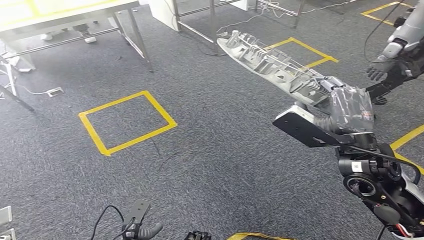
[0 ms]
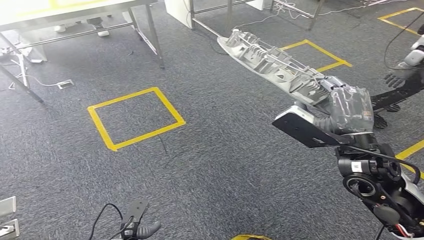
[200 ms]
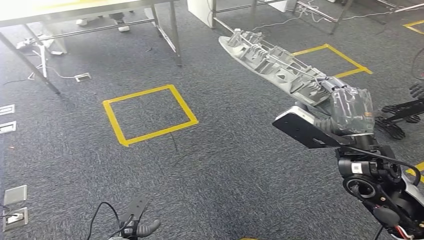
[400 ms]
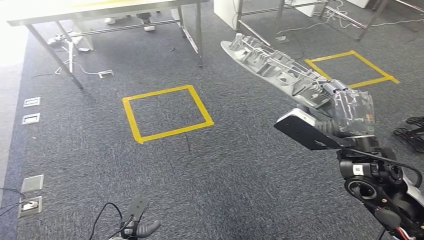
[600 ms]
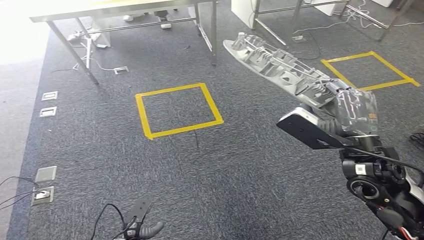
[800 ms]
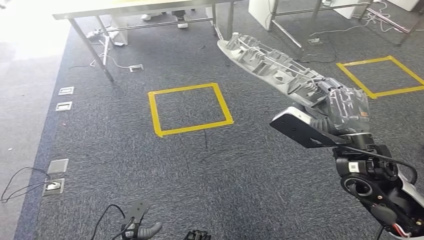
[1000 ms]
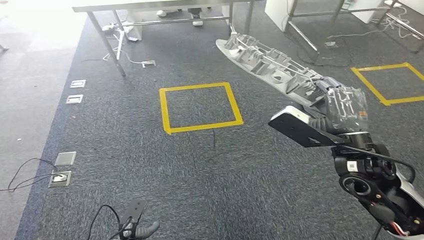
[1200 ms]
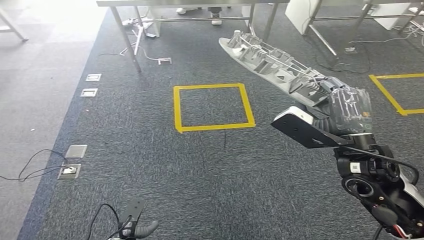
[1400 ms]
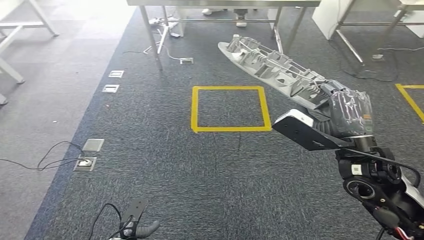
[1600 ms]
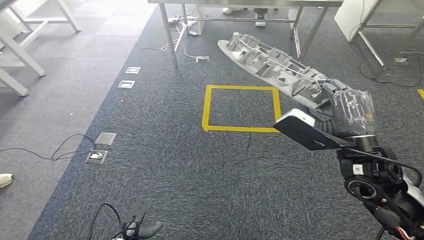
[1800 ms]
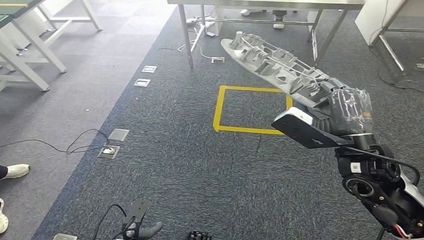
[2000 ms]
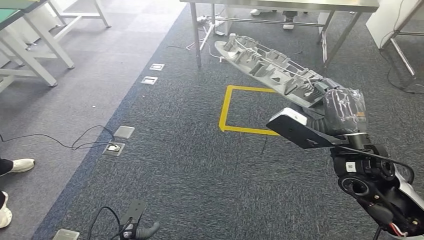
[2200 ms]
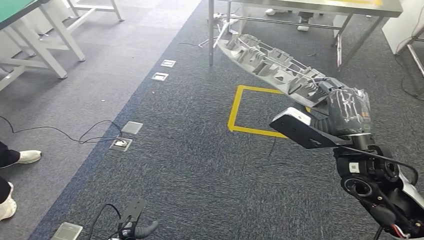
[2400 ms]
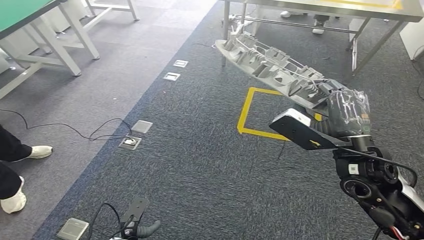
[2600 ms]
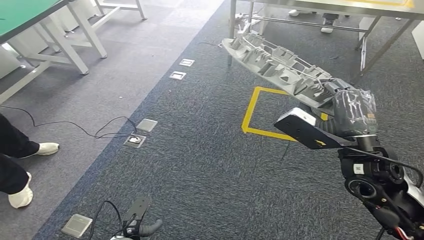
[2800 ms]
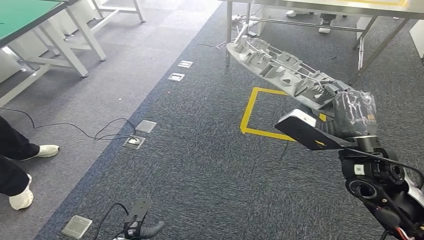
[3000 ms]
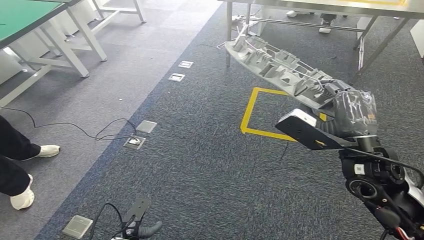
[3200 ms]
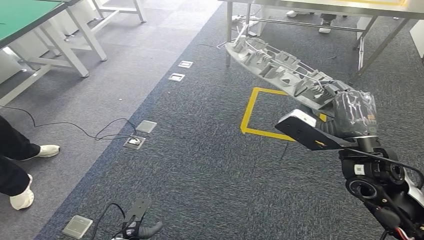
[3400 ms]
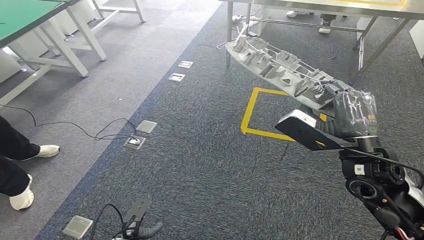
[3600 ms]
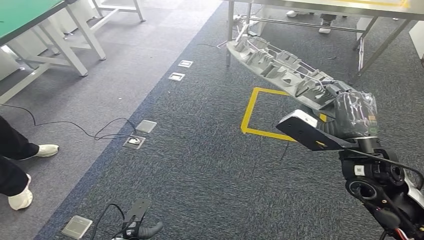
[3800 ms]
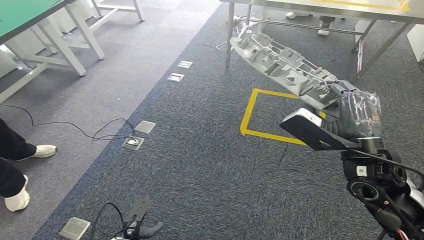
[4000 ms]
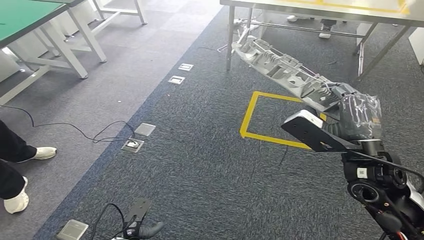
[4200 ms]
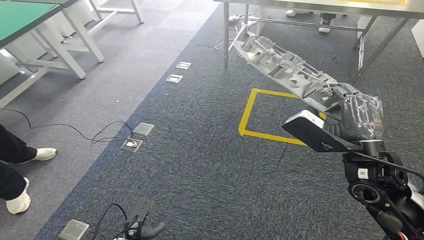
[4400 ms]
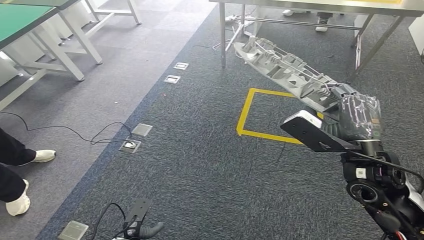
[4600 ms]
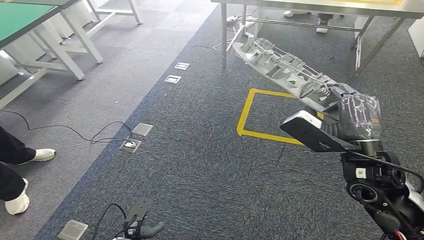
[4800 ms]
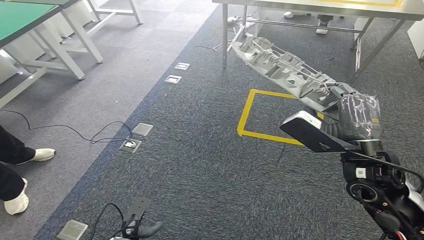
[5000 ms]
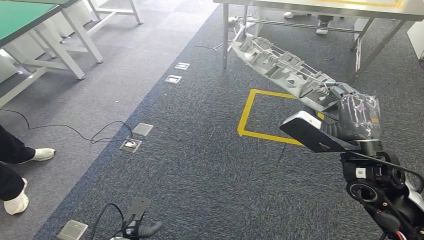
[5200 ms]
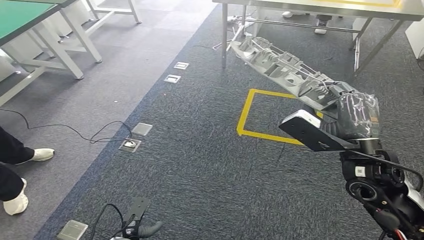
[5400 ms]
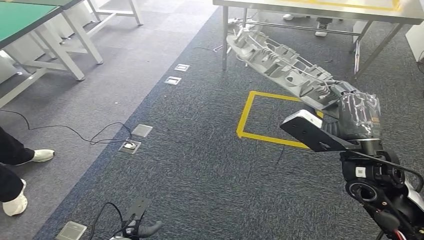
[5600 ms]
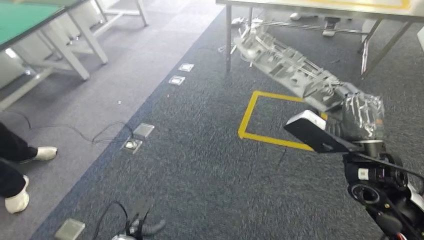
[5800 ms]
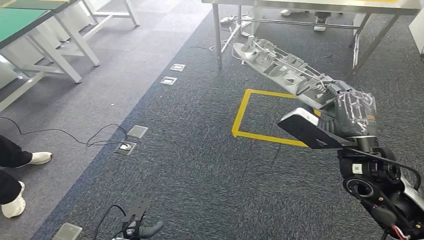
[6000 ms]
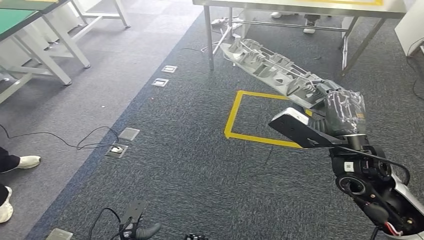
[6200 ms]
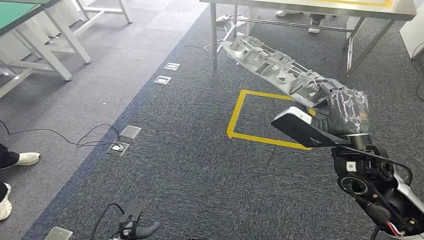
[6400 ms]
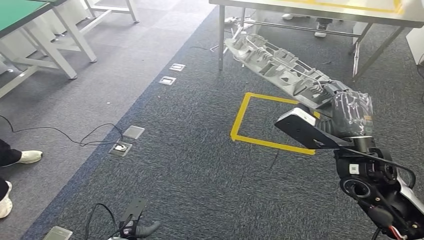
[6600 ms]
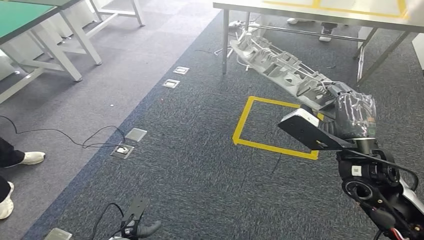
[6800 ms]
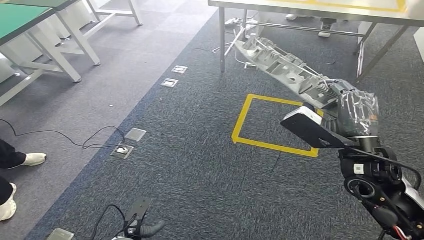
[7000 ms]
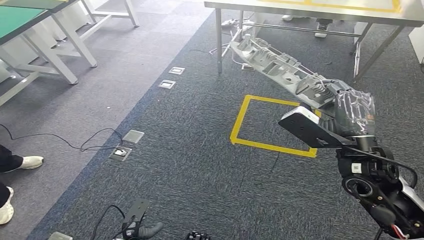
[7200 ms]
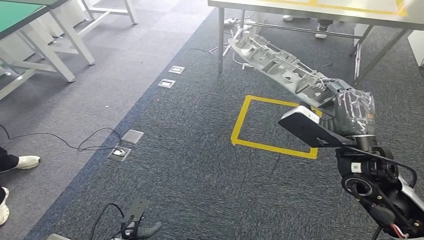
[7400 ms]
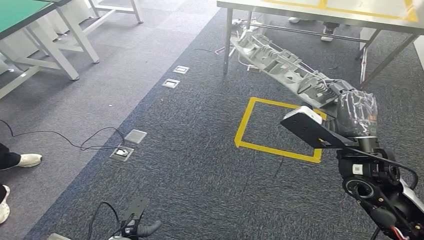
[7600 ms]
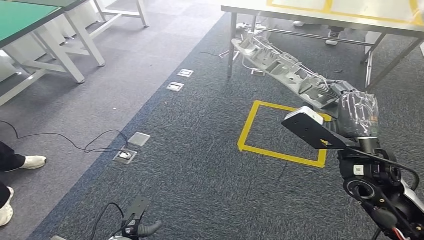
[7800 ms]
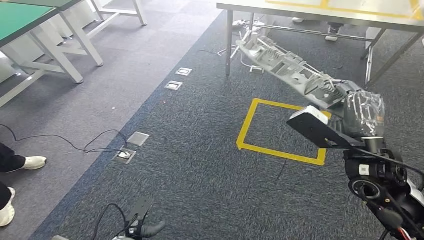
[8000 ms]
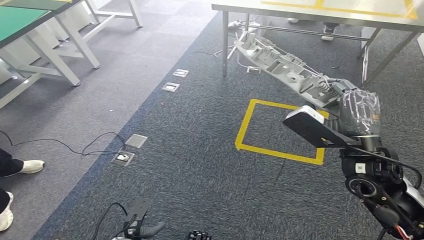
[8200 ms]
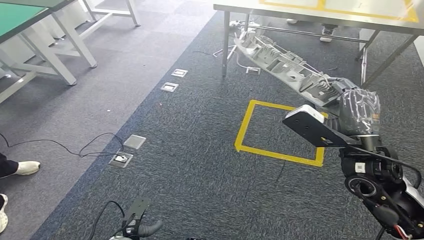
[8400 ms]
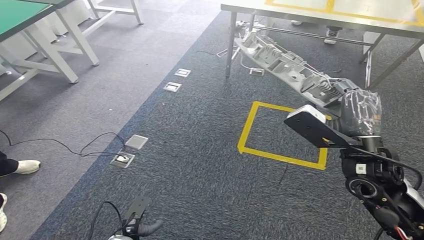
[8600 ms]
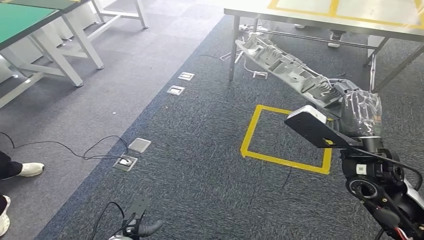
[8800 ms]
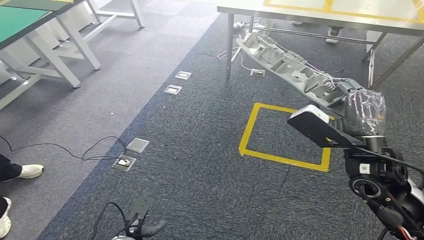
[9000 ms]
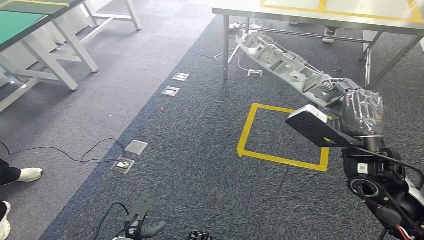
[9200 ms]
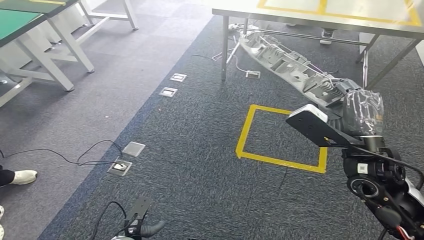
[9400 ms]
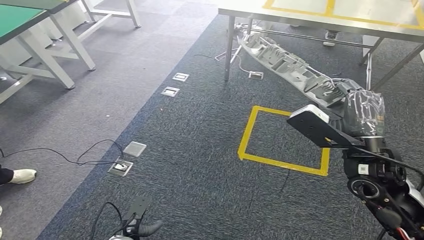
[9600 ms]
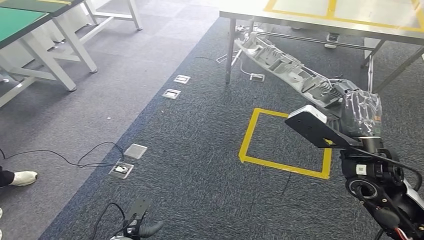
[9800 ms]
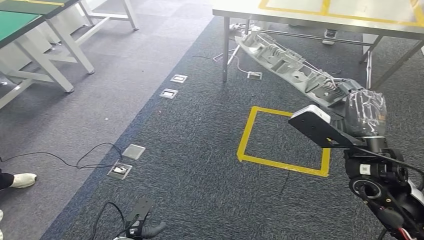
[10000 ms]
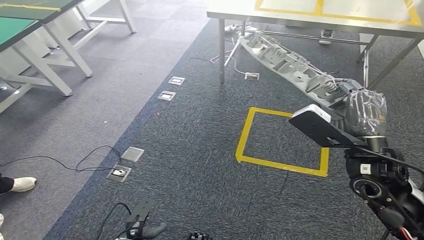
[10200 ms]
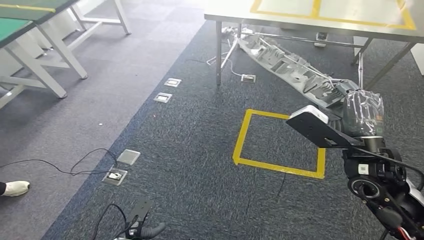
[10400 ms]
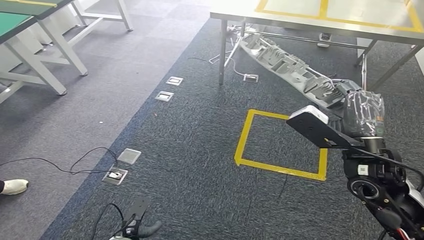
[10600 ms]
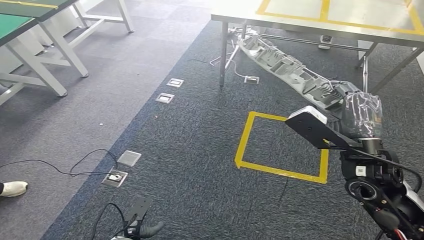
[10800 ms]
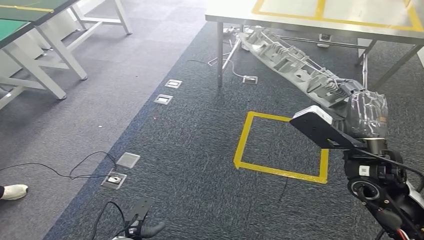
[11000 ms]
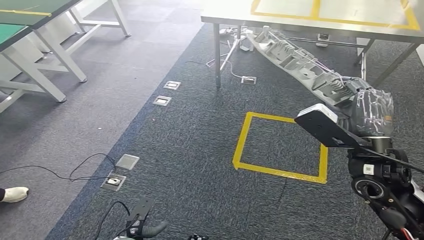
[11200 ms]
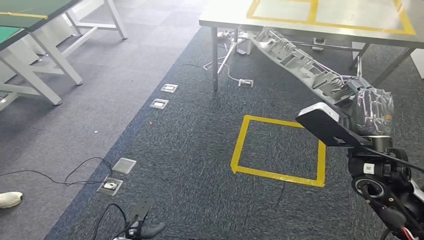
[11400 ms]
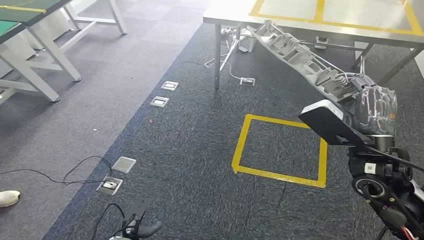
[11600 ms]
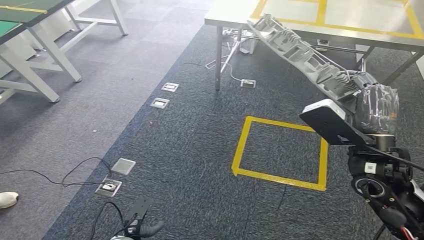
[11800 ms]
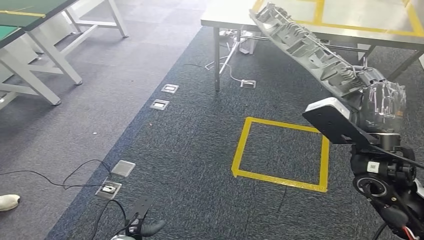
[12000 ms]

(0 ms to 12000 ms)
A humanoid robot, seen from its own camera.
3000 ms - 6000 ms: Neither hand changes place.
9000 ms - 10400 ms: Both hands stay about where they are.

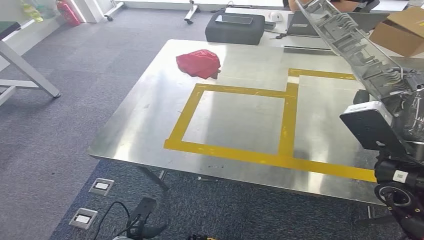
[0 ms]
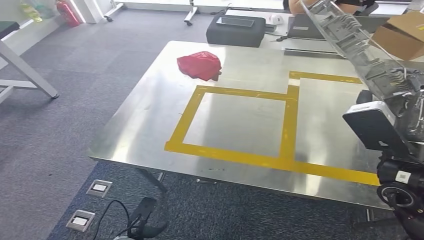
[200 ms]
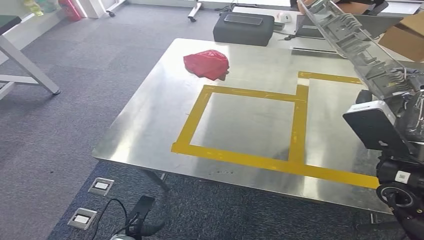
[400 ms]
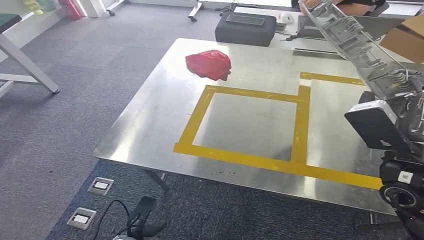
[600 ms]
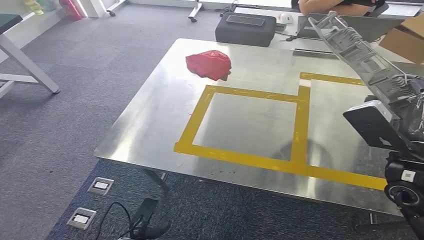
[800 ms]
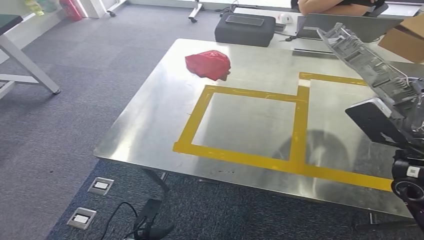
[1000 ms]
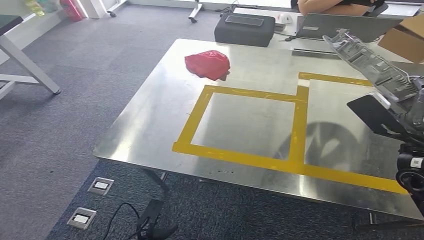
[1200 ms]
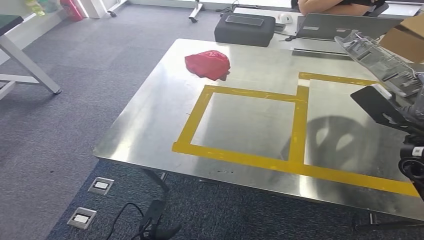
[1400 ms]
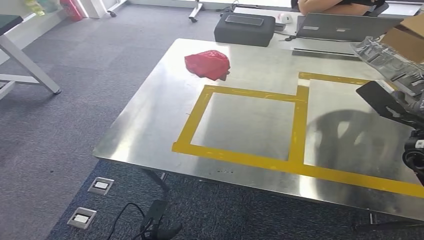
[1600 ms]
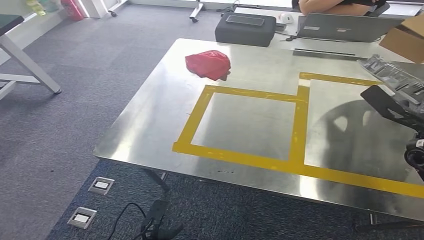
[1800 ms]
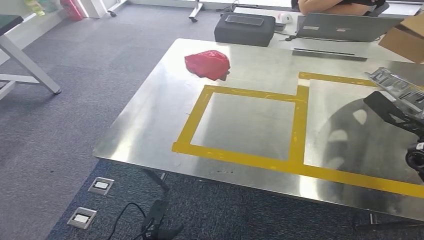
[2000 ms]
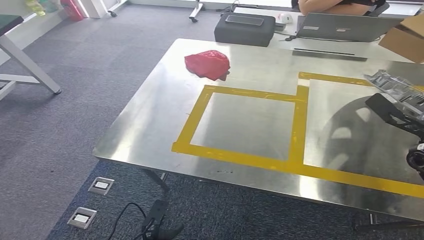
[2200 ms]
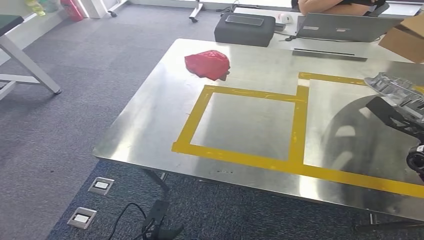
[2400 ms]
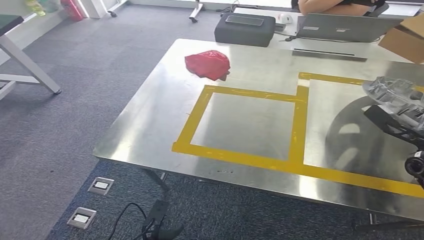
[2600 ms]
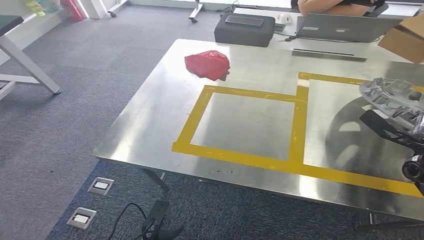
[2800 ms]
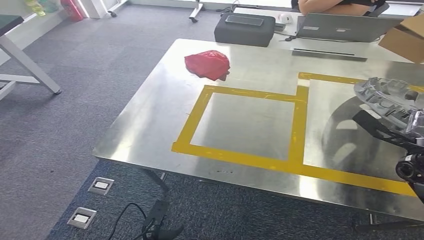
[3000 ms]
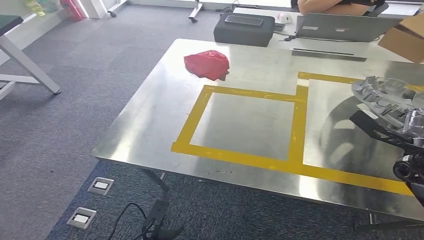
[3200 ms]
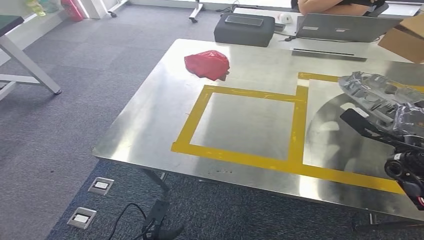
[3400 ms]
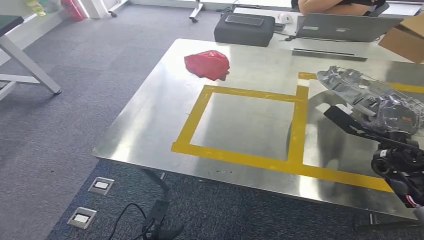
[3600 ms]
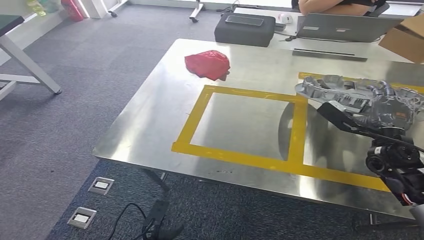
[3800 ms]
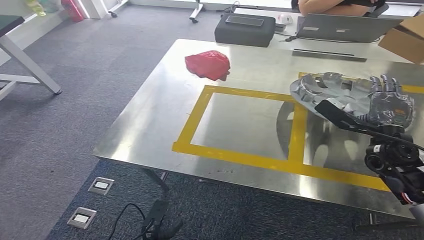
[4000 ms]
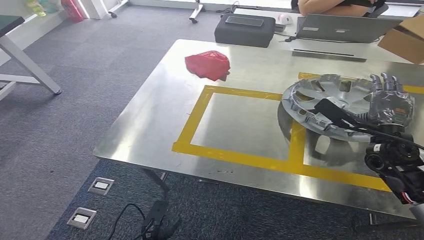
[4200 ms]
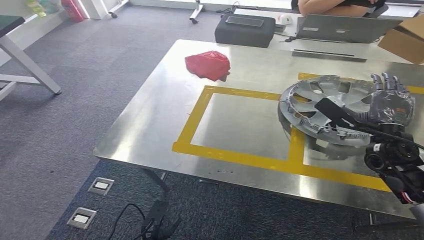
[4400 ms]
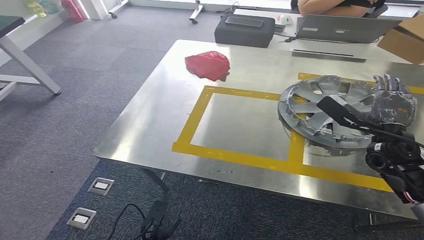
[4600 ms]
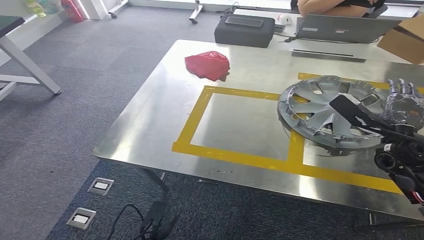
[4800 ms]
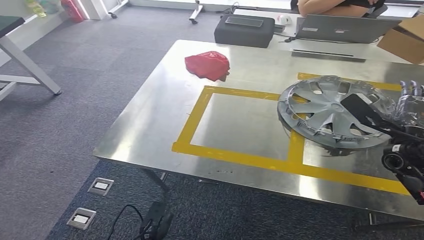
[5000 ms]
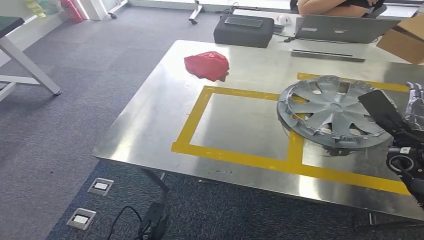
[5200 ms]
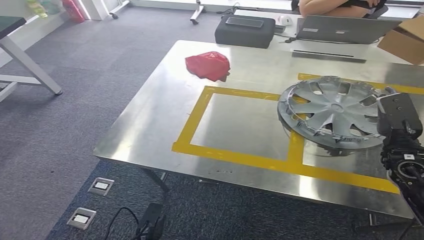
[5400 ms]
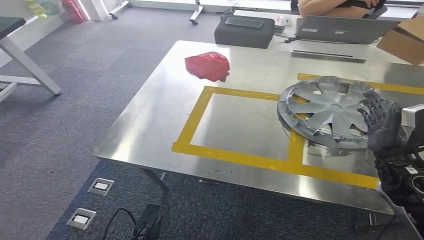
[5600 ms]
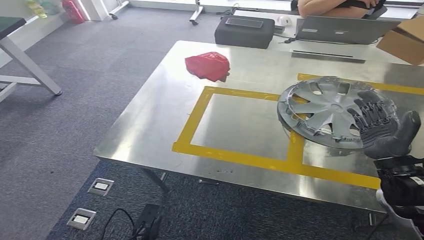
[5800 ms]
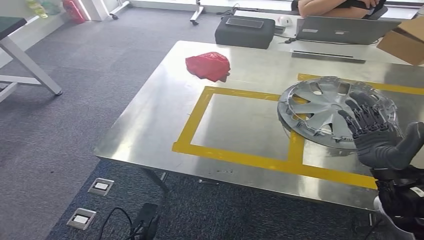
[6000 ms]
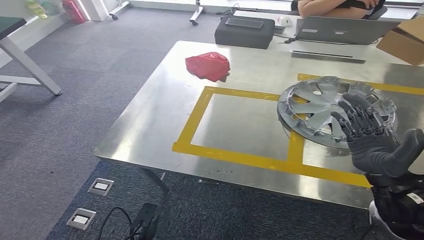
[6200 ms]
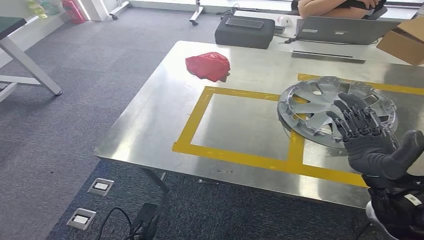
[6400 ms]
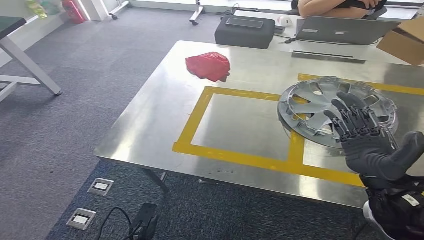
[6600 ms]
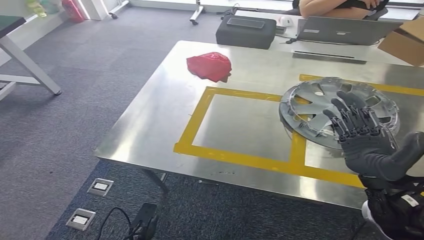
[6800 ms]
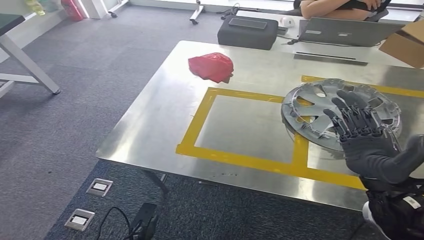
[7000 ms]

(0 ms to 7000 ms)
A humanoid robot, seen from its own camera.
1400 ms - 2800 ms: The right hand goes roughly 15 cm downward and to the right.
2800 ms - 4200 ms: The right hand moves to the left, approximately 10 cm.
4200 ms - 5600 ms: The right hand moves backward, approximately 5 cm.
5600 ms - 7000 ms: The right hand shifts some 10 cm backward and to the left.
